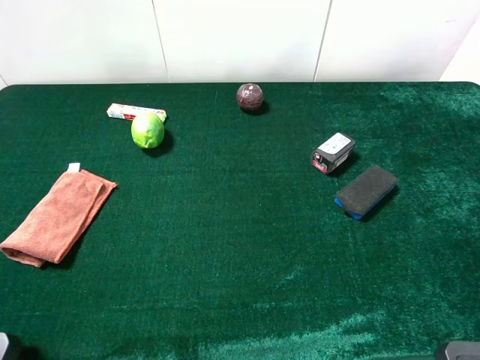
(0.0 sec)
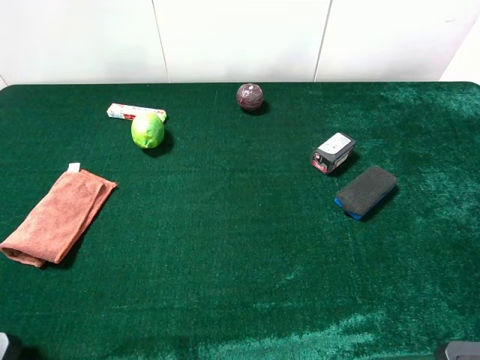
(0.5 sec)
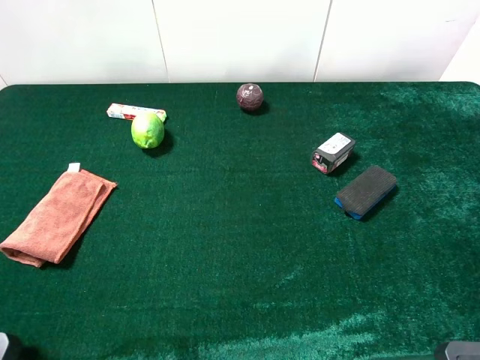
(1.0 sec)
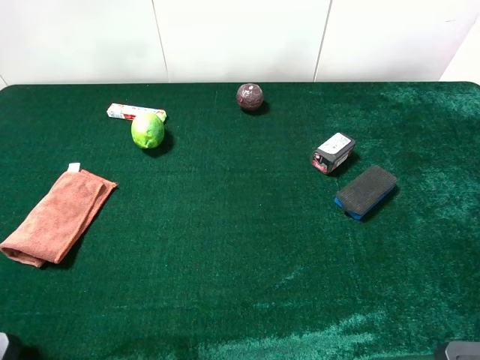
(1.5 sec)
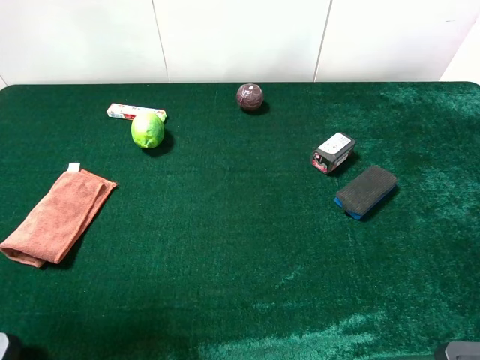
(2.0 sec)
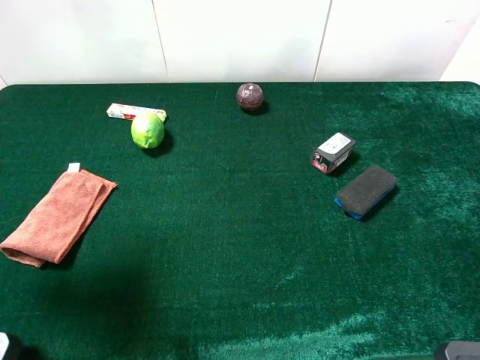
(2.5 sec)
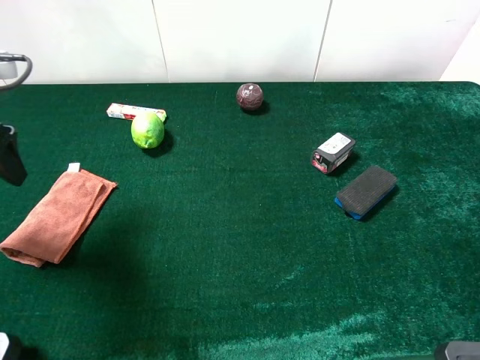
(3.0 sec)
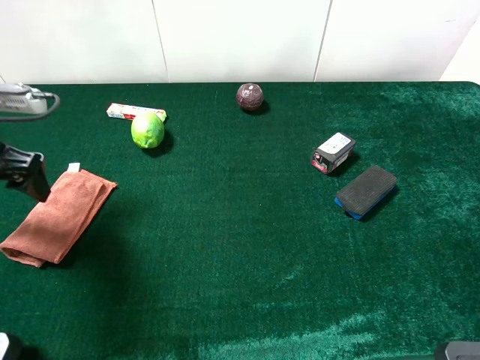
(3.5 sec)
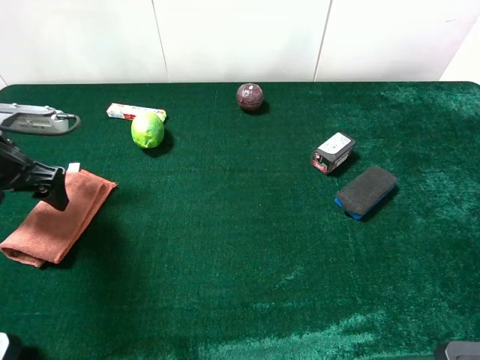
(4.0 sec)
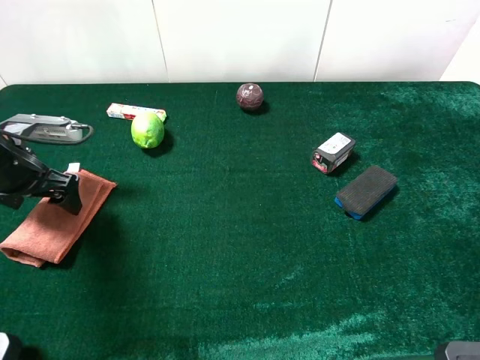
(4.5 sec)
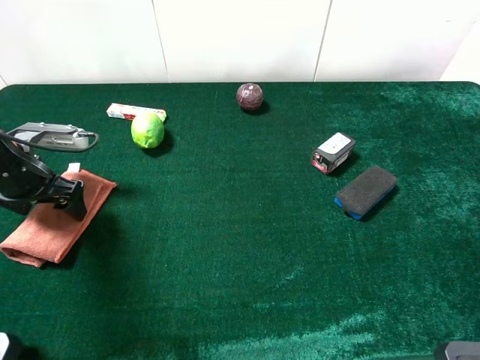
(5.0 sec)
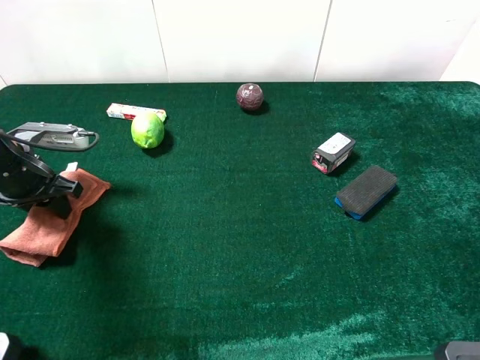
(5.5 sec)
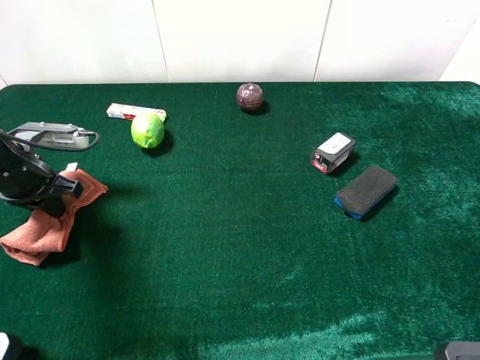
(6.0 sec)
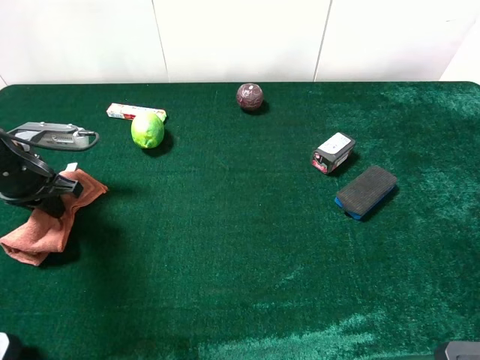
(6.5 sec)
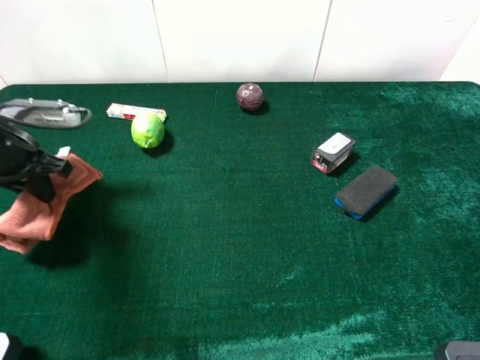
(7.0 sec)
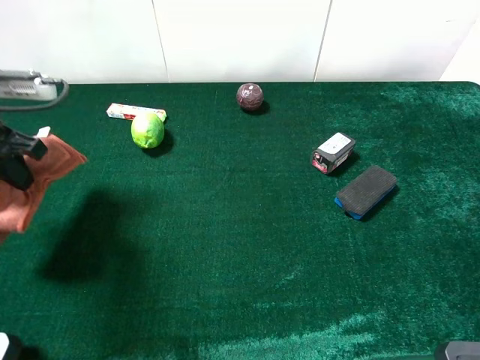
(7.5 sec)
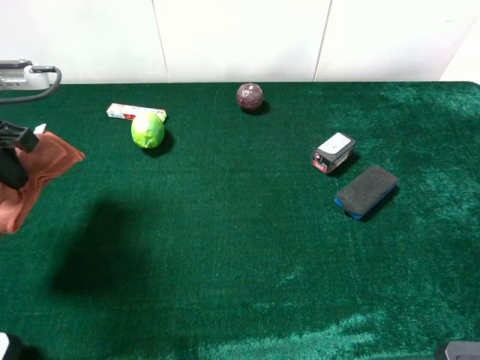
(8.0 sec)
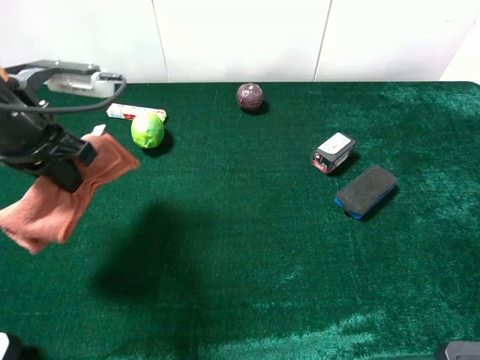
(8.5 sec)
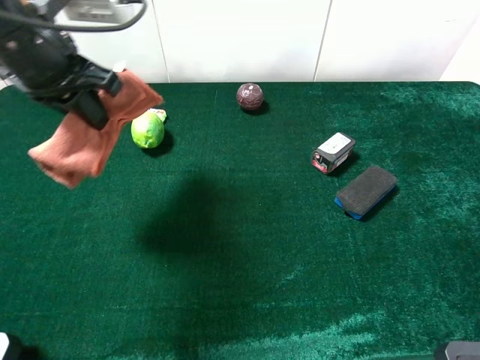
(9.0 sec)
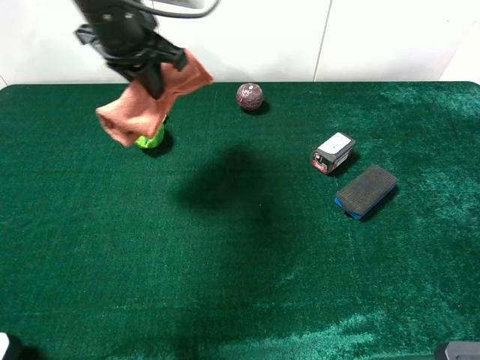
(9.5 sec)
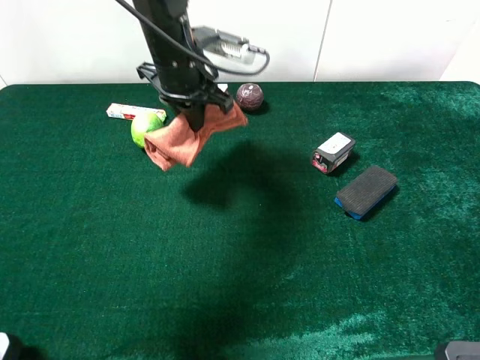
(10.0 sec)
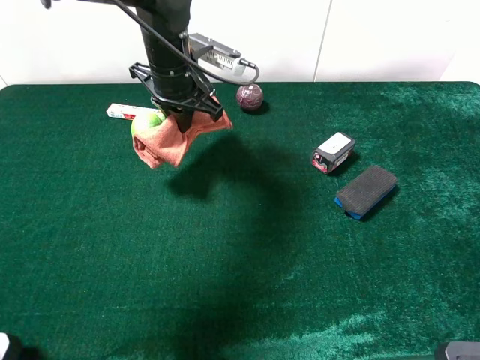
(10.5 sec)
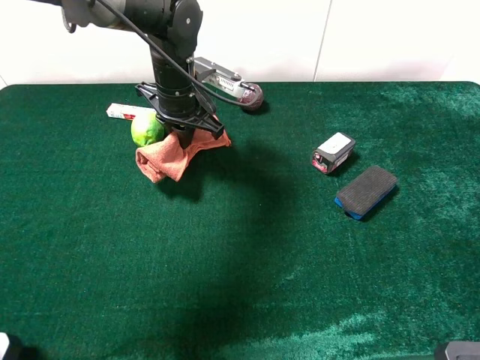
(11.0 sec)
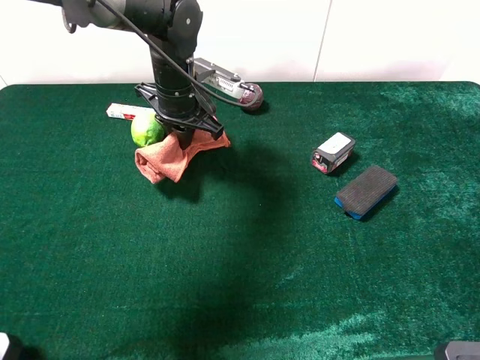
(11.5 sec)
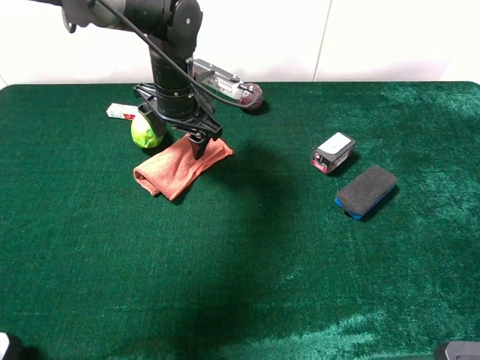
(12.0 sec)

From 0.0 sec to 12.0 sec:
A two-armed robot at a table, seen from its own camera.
Task of the whole recording: the gripper move the object.
Step, from 0.0 sec to 6.5 sec: Grasp the brown towel with the left gripper.
From 0.0 sec to 2.0 sec: The left gripper shifts approximately 10 cm forward.
From 2.0 sec to 4.0 sec: The left gripper moves downward and forward, some 25 cm.
From 4.0 sec to 6.0 sec: The left gripper closes up.
From 6.0 sec to 8.0 sec: The left gripper travels upward by approximately 10 cm.
From 8.0 sec to 10.0 sec: The left gripper heads to the right and forward, covering some 25 cm.
From 10.0 sec to 12.0 sec: The left gripper opens its fingers.

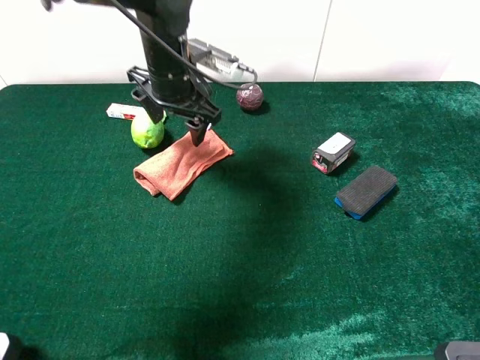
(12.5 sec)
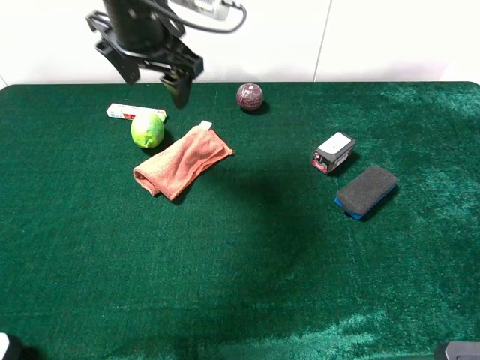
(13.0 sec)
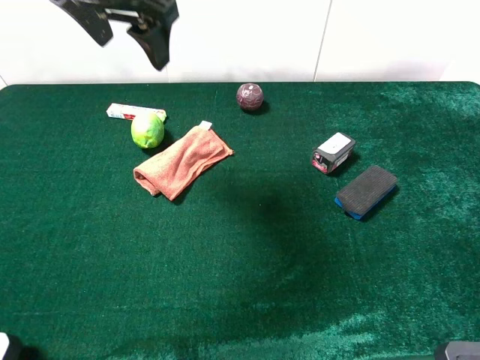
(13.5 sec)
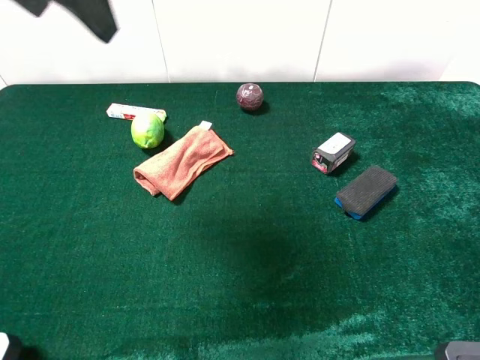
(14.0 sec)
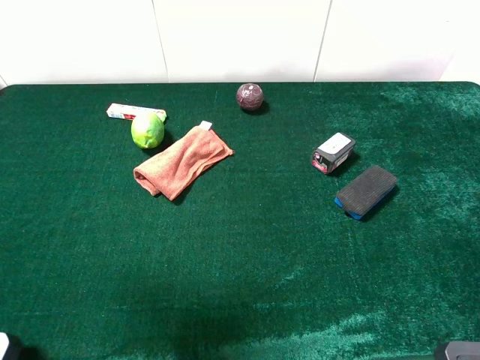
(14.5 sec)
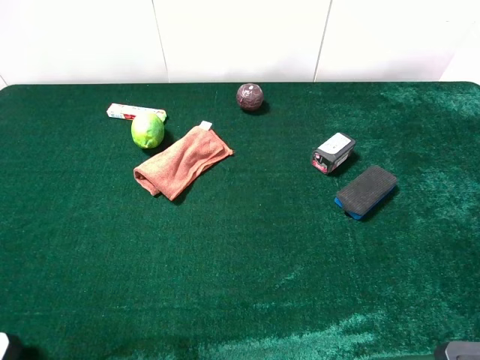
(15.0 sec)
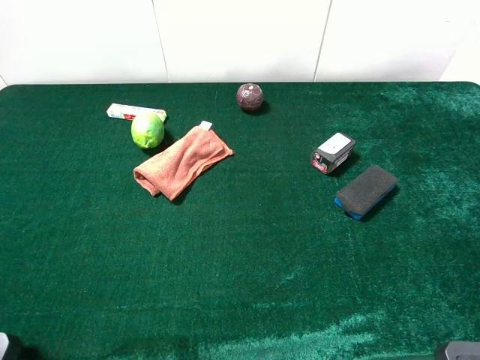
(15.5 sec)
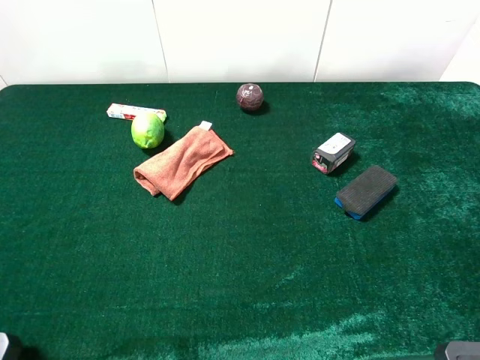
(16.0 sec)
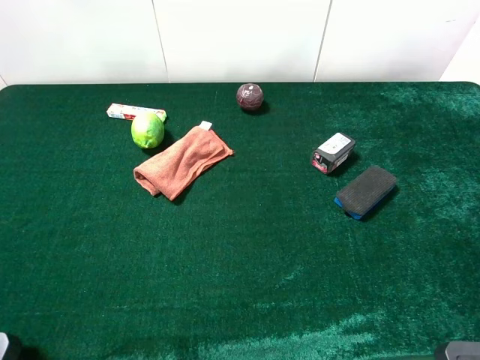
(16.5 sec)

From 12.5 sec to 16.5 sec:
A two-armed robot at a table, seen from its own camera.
Task of the whole recording: the gripper move the object.
From 12.5 sec to 14.5 sec: The left gripper shifts about 35 cm backward, upward and to the left.
From 14.5 sec to 16.5 sec: The left gripper moves backward, downward and to the left, some 15 cm.
